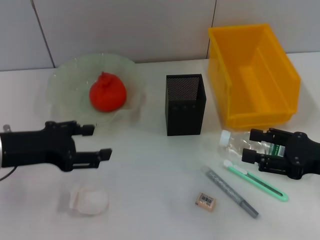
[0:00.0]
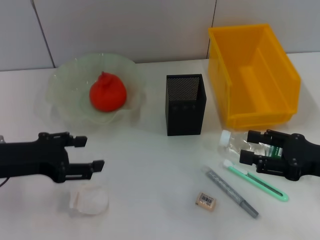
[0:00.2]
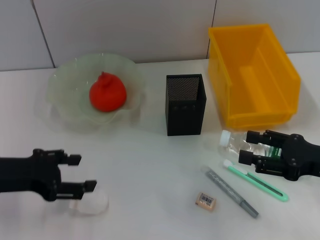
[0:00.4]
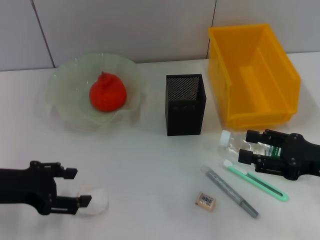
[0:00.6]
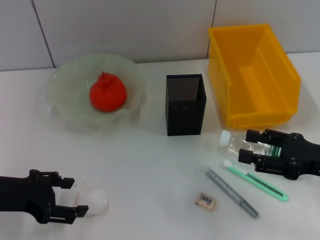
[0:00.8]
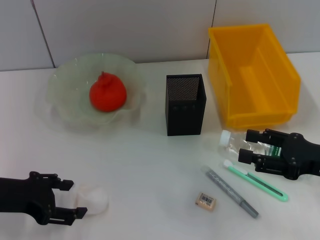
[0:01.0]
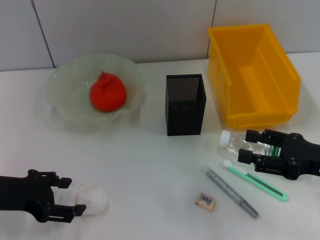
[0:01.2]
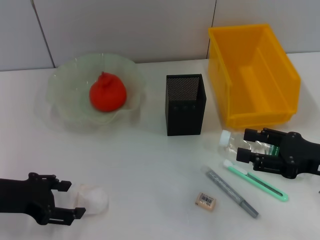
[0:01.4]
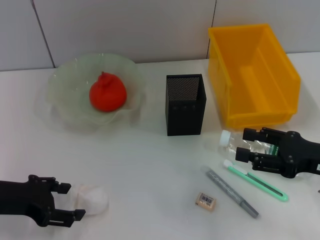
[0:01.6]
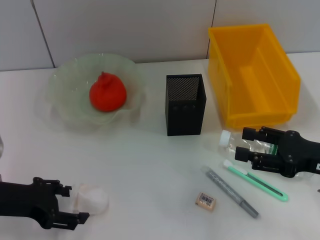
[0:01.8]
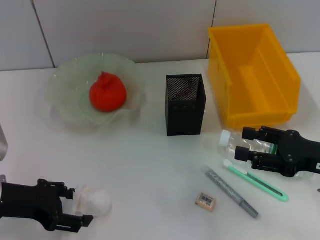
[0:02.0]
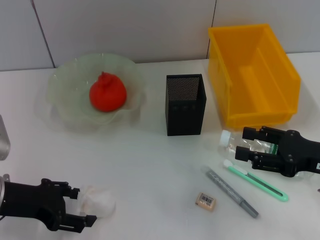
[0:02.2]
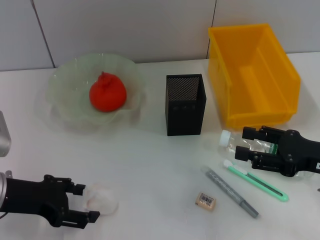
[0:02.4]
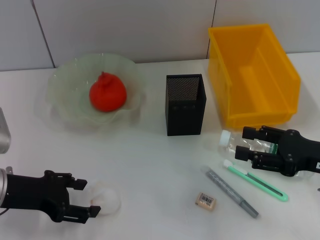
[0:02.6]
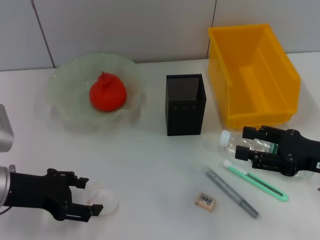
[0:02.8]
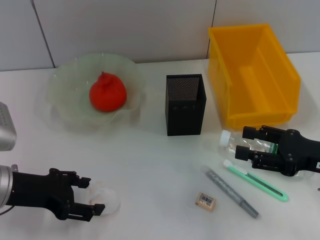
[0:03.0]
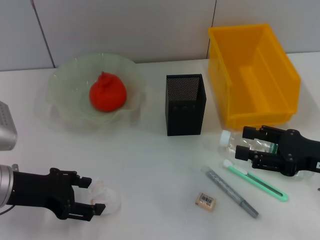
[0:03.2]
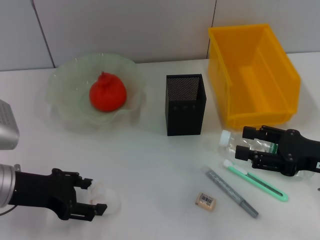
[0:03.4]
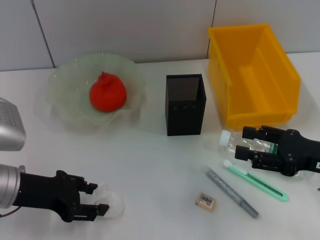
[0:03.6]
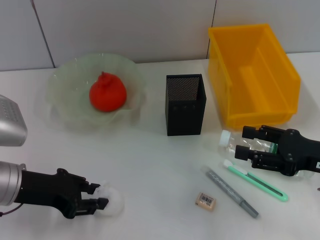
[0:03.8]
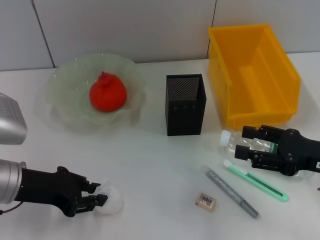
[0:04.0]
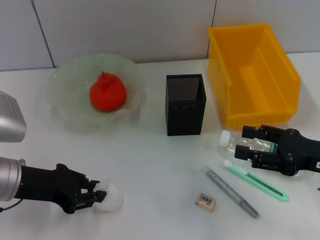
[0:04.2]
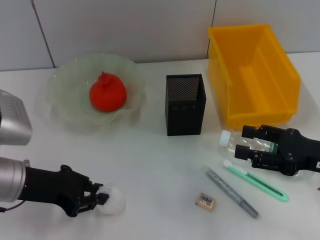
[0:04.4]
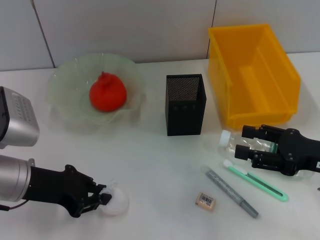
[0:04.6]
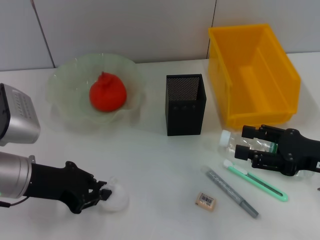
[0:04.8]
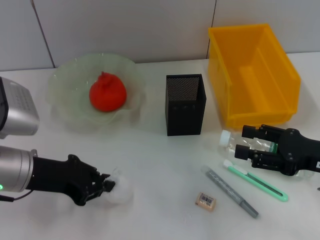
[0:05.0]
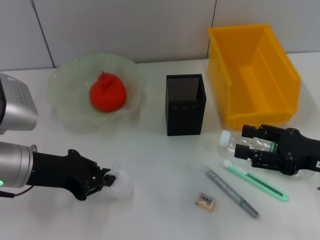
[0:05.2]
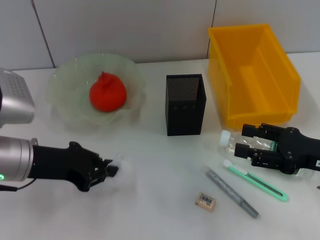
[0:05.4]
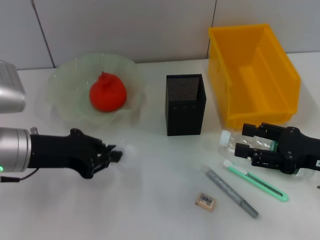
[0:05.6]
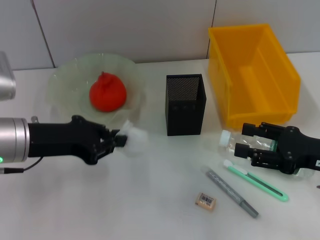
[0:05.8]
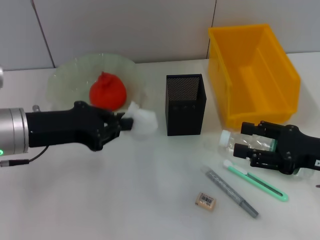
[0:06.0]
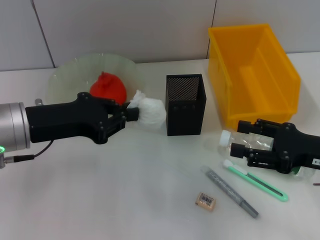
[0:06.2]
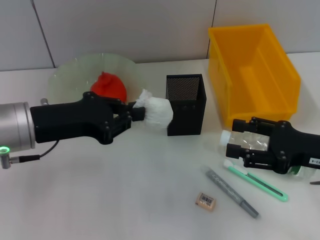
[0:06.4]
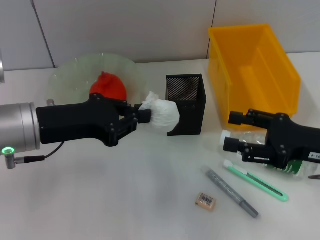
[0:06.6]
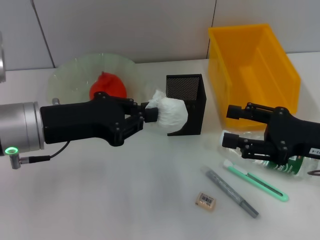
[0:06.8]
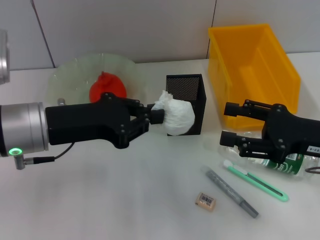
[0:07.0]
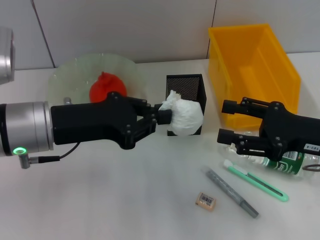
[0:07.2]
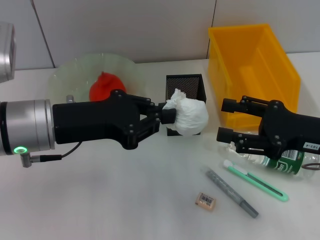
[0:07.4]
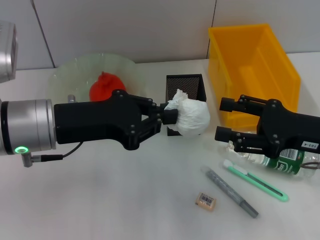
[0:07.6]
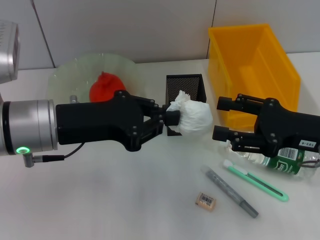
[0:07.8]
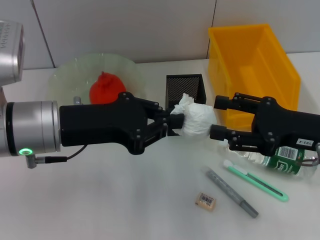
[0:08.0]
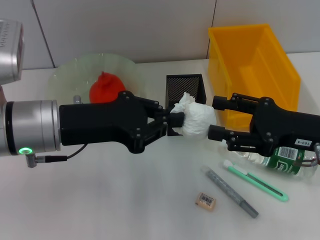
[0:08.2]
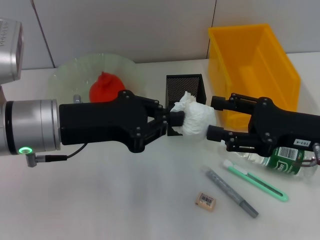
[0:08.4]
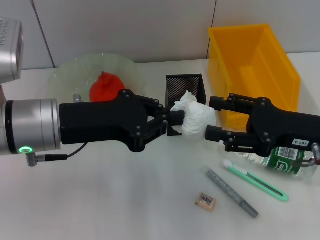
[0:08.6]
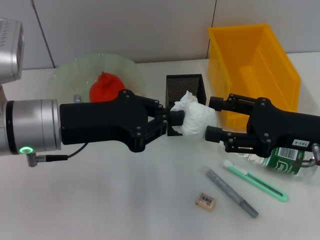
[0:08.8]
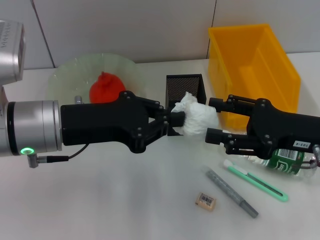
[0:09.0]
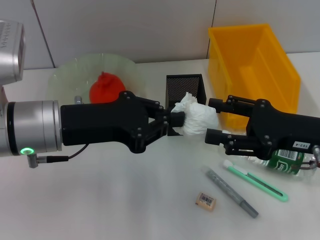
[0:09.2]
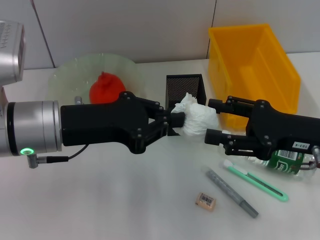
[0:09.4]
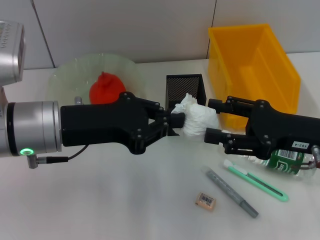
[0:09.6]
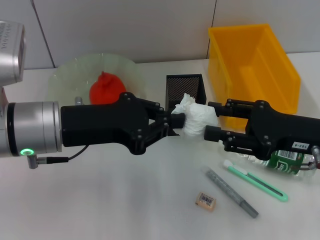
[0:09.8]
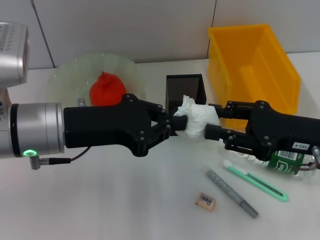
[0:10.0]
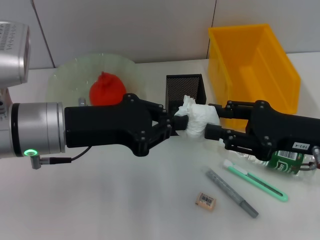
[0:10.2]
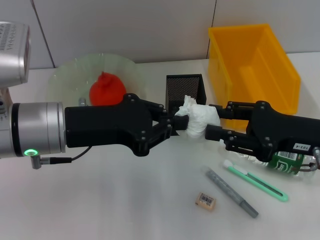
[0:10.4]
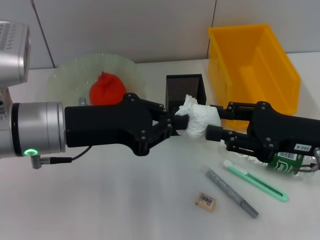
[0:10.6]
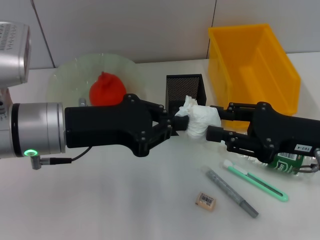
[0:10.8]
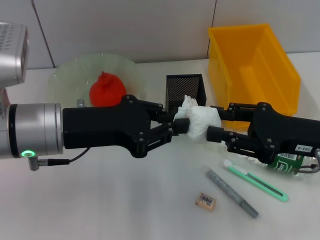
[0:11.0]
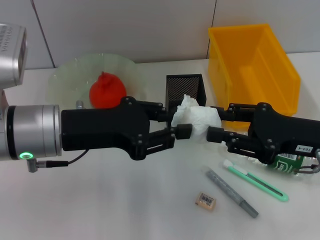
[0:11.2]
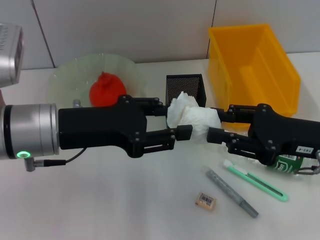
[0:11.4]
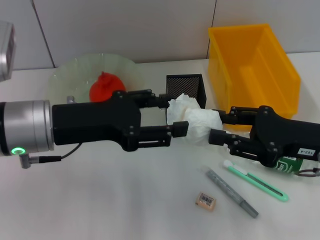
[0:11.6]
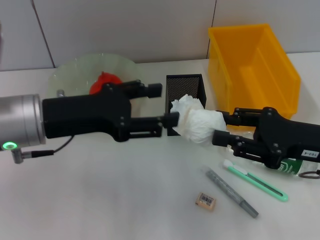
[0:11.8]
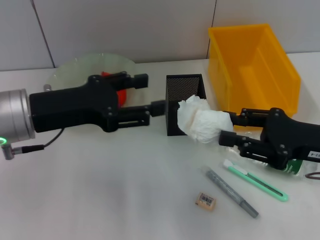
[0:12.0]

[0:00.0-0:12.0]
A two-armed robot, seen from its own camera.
Step, 0:00.0 to 0:05.0: Grab the paper ball with the left hand.
0:00.0 to 0:03.0: The grippers stay close to where they were, moving slightly.
0:03.0 to 0:04.4: The left gripper closes.
0:04.4 to 0:06.0: The left gripper changes place by about 5 cm.
0:06.0 to 0:07.6: There are only small adjustments of the grippers.
0:07.6 to 0:09.0: Both grippers stay put.
0:09.0 to 0:10.4: The right gripper closes its fingers.
0:10.4 to 0:12.0: The left gripper opens.

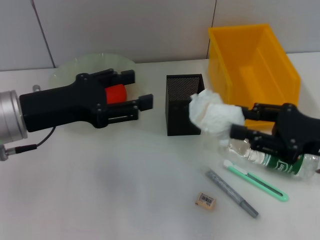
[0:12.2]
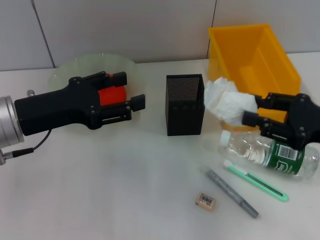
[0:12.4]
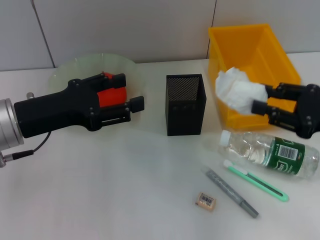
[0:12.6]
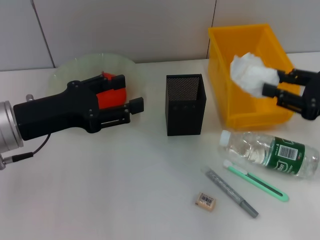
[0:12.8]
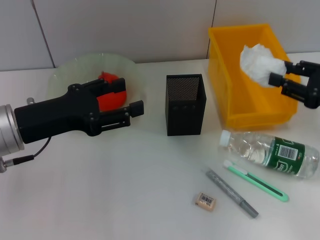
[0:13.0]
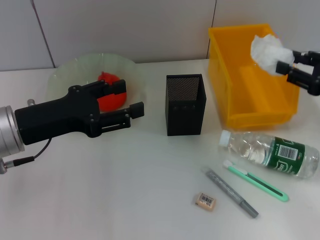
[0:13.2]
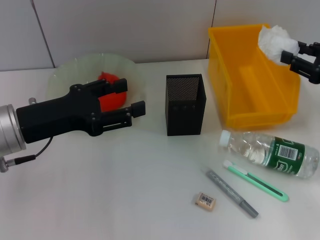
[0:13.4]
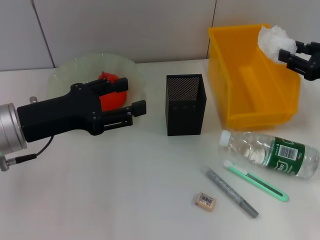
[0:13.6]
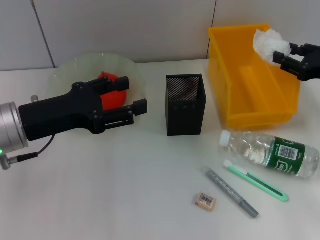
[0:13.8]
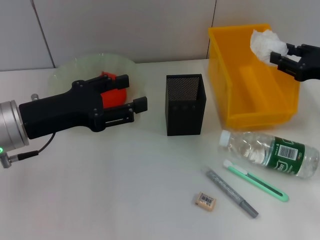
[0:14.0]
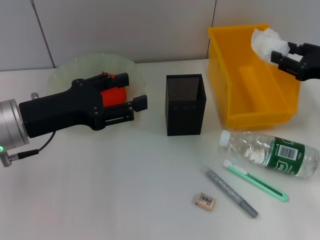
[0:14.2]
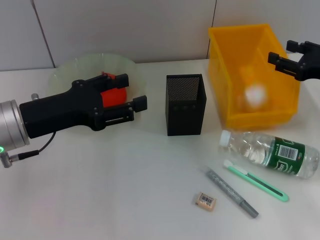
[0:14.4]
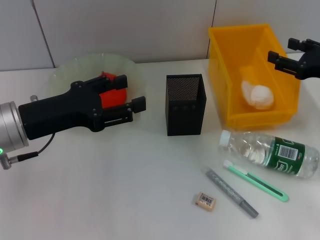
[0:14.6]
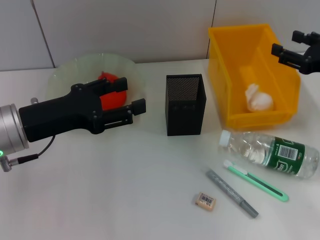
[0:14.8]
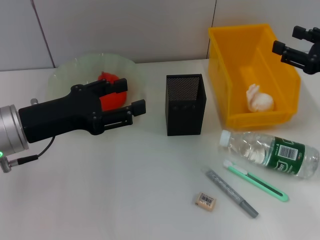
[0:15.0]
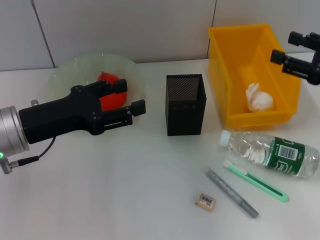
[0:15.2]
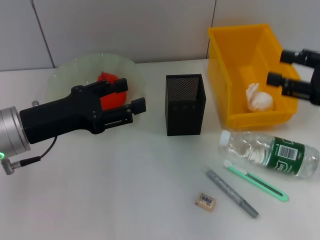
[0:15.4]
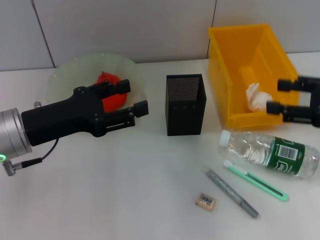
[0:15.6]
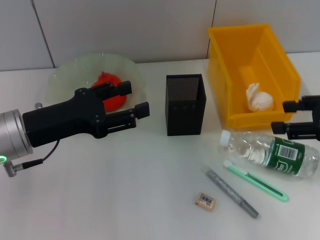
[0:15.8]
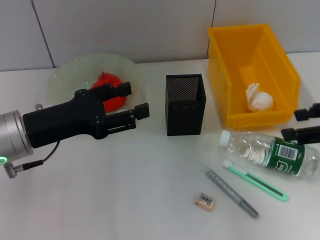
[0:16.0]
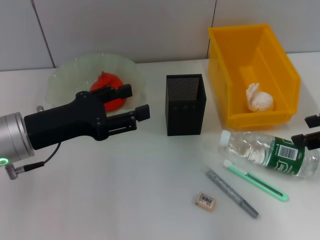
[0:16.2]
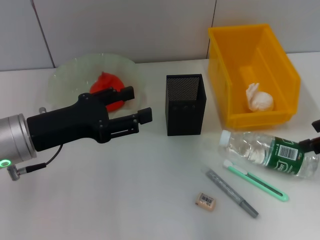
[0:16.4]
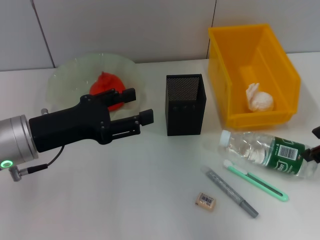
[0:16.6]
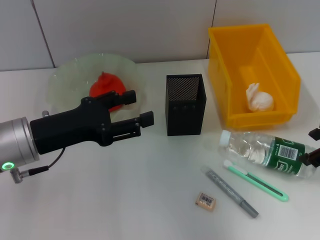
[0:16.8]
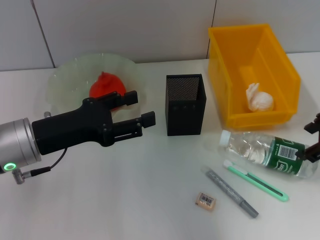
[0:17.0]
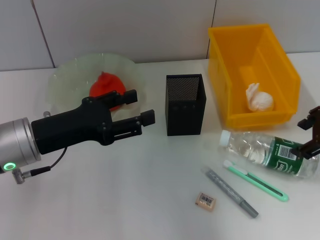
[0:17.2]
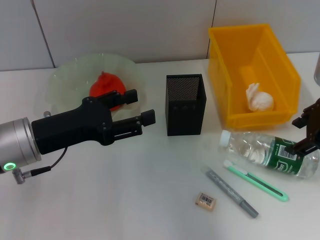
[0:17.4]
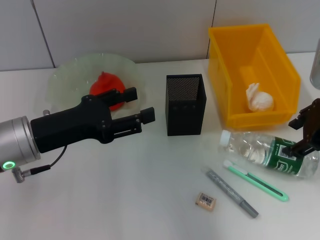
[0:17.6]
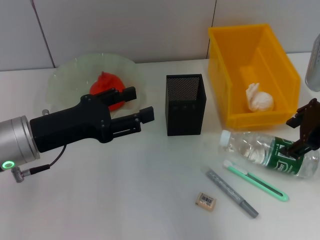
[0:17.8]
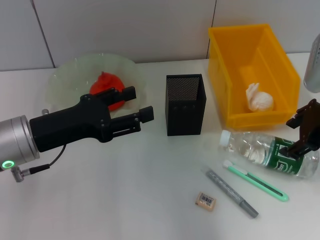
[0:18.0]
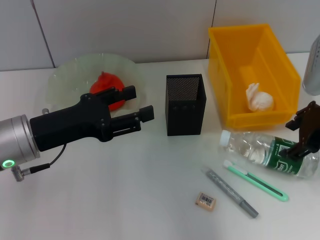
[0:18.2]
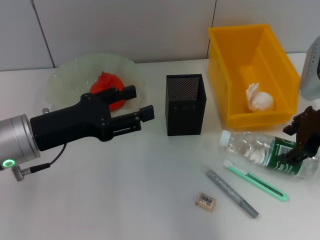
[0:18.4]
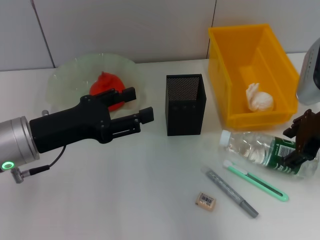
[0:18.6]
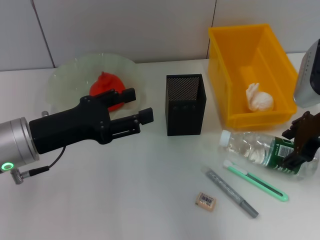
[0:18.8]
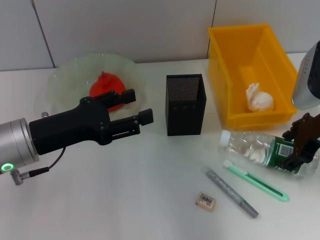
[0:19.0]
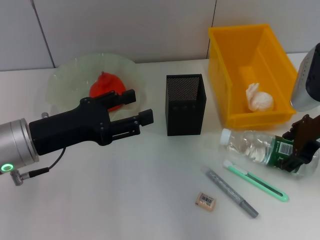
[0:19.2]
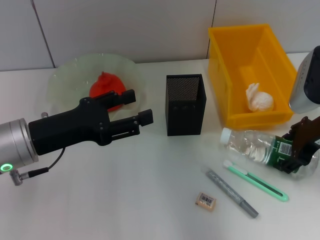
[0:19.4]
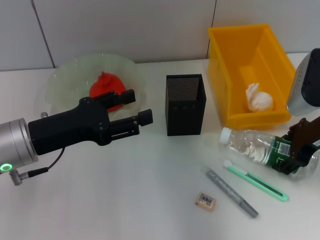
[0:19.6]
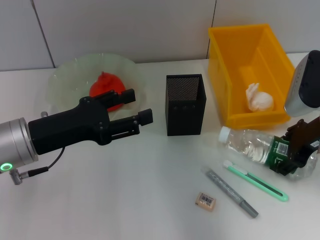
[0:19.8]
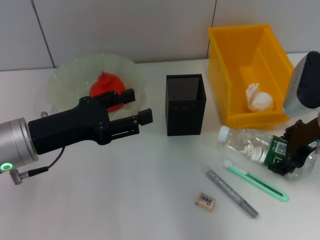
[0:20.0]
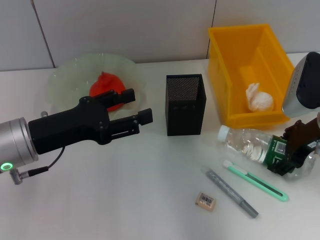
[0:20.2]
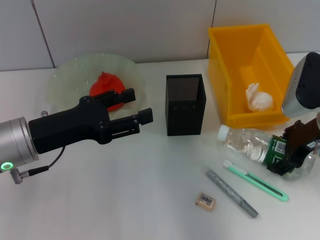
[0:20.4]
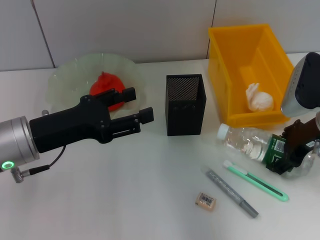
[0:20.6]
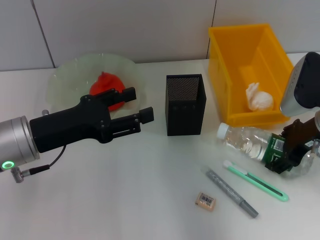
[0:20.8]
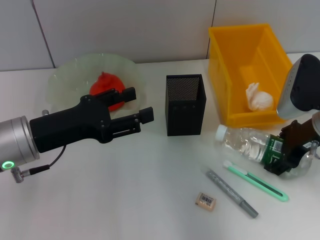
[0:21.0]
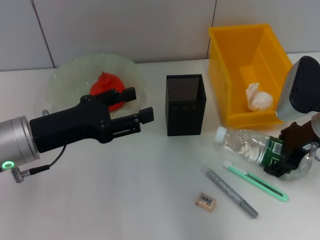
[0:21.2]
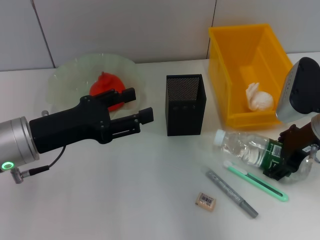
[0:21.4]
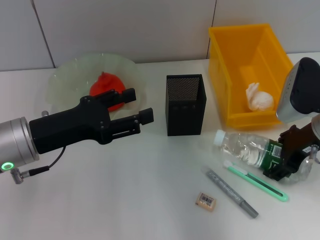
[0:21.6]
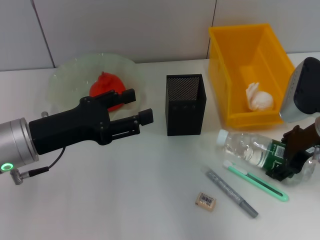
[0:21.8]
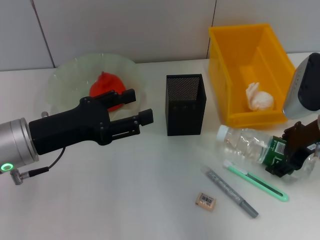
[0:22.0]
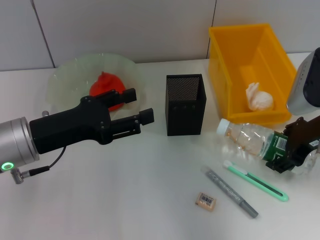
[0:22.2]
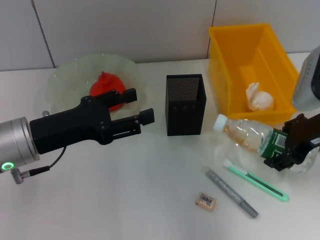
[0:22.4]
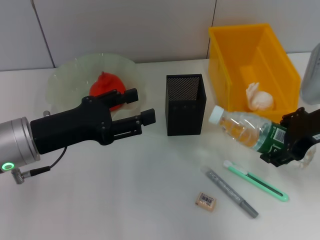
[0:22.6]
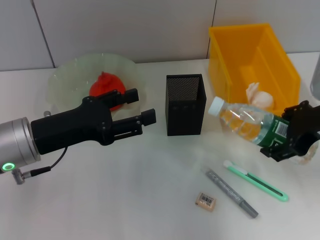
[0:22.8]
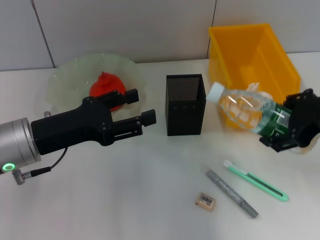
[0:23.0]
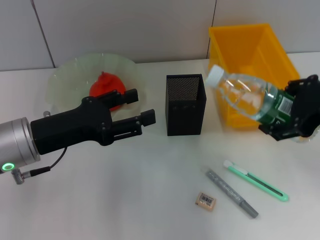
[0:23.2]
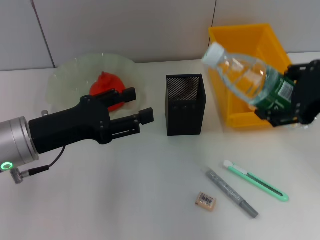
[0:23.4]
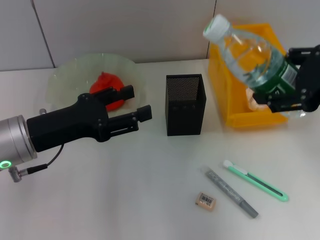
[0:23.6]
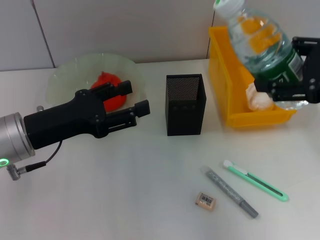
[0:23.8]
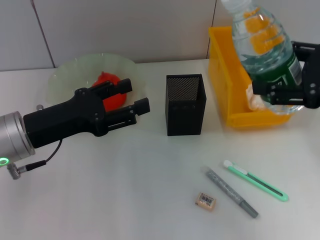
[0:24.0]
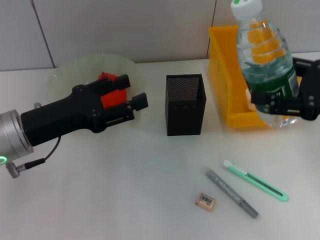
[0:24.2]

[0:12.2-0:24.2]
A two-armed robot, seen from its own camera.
Step, 0:12.4 to 0:14.8: Place the paper ball into the trash can with the right hand.
Step, 0:15.2 to 0:20.6: Grab the water bottle with the right hand.
0:12.2 to 0:13.8: The right gripper heads forward and to the right, covering some 10 cm.
0:13.8 to 0:15.2: The right gripper moves some 5 cm, and opens its fingers.
0:15.2 to 0:16.6: The right gripper shifts about 5 cm upward.
0:16.6 to 0:18.2: The right gripper ends up some 5 cm from where it was.
0:18.2 to 0:19.8: The grippers stay close to where they were, moving slightly.
0:19.8 to 0:21.2: Both grippers stay put.
0:21.2 to 0:22.6: The right gripper travels upward by approximately 5 cm.
0:22.6 to 0:24.2: The right gripper reaches approximately 10 cm upward, then returns.
